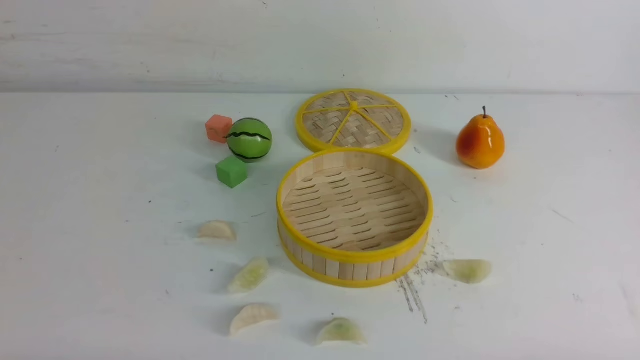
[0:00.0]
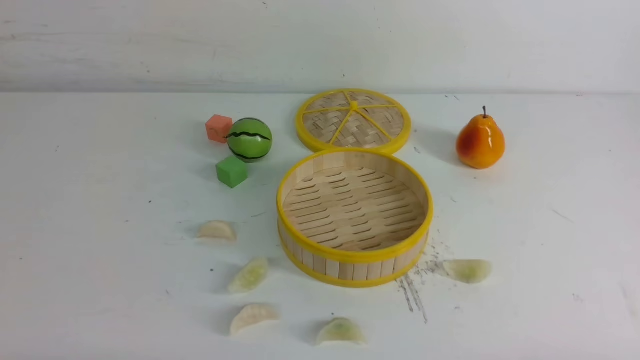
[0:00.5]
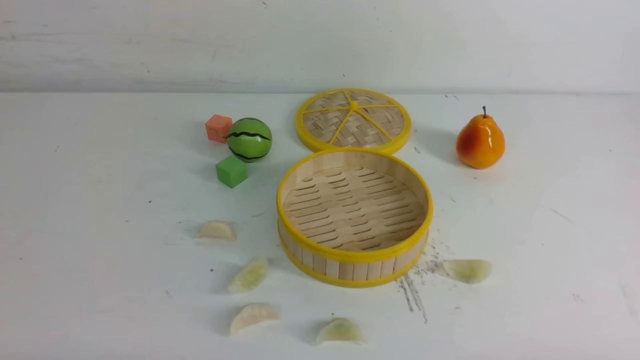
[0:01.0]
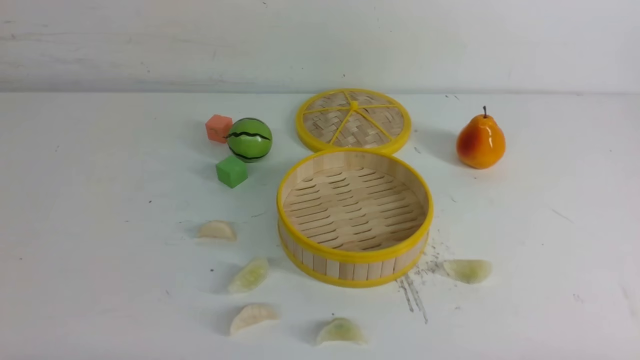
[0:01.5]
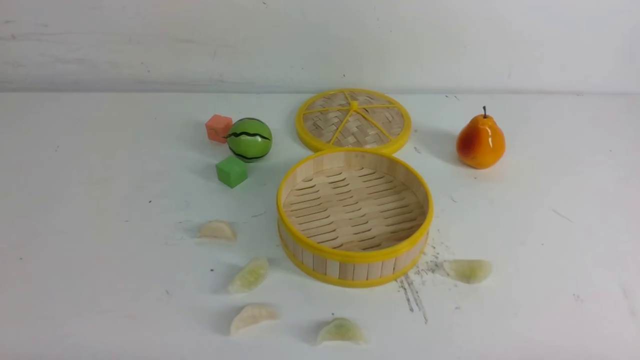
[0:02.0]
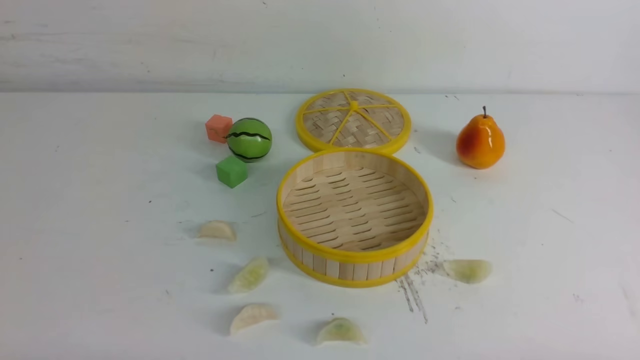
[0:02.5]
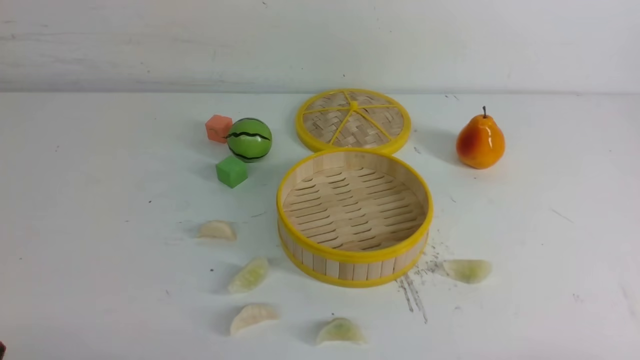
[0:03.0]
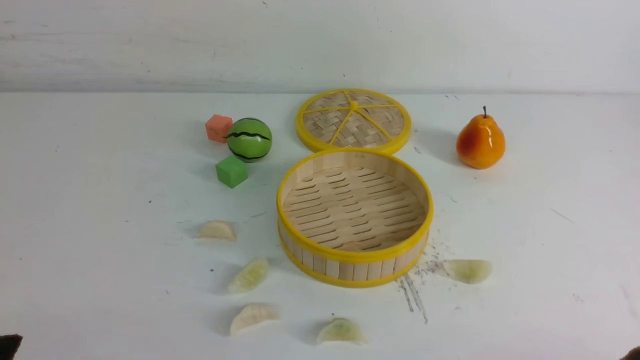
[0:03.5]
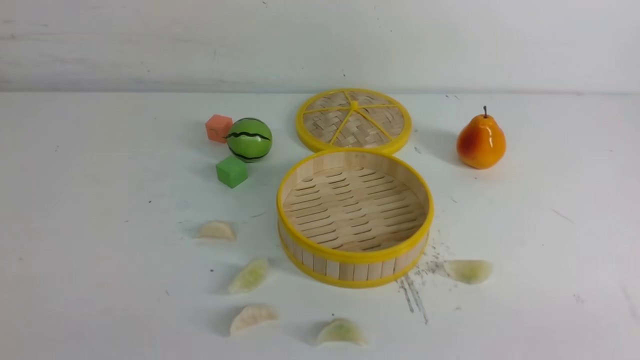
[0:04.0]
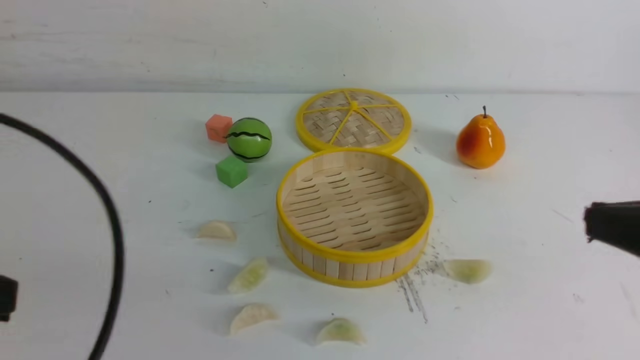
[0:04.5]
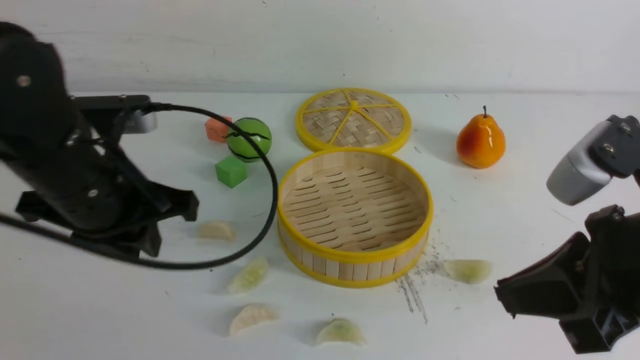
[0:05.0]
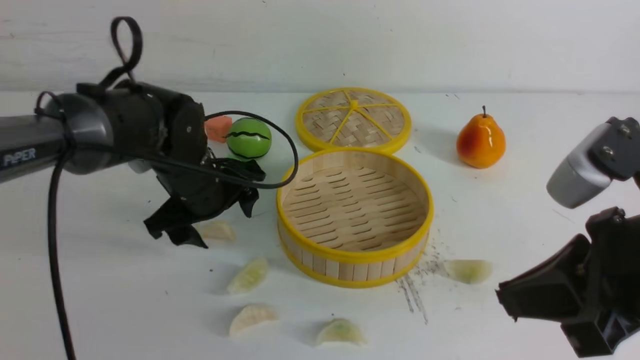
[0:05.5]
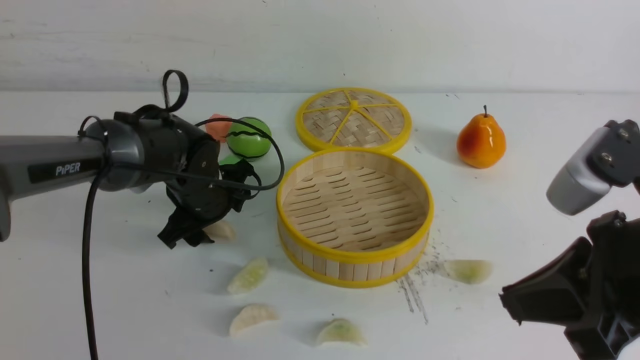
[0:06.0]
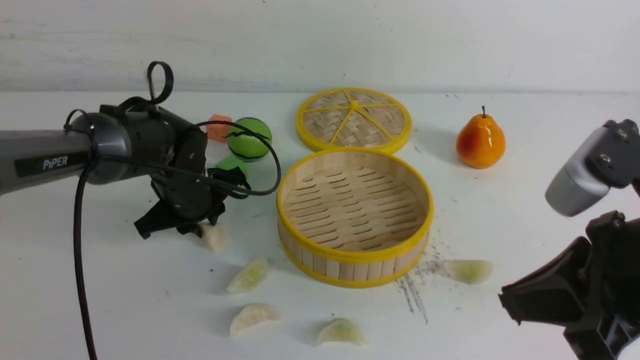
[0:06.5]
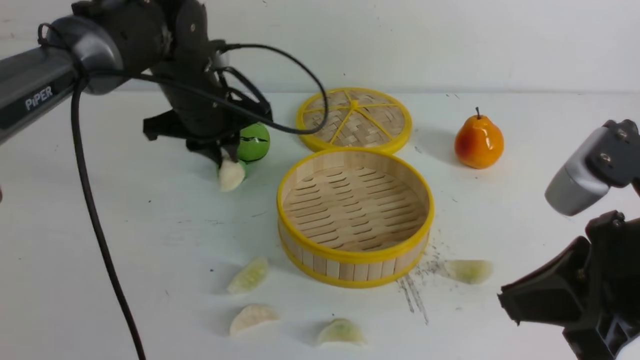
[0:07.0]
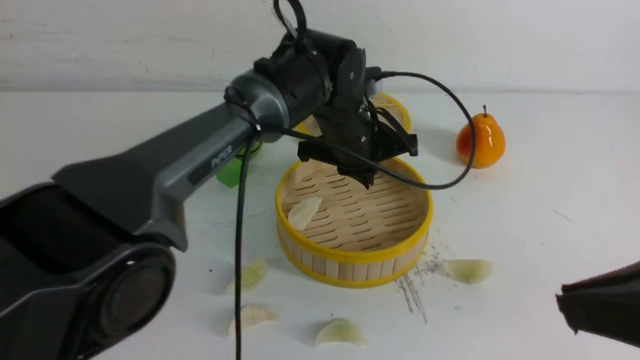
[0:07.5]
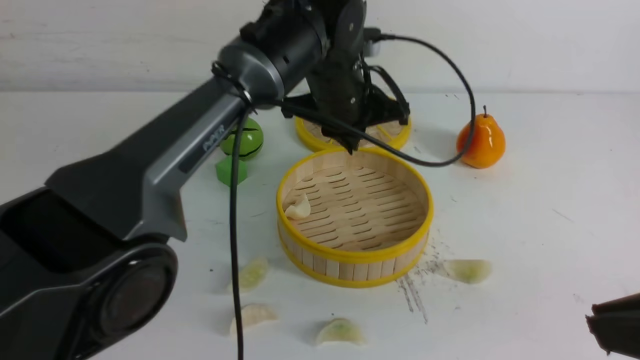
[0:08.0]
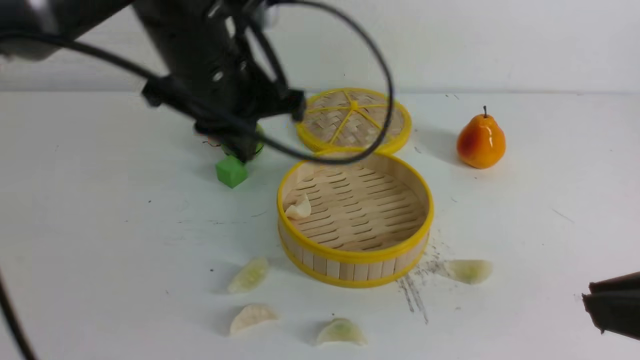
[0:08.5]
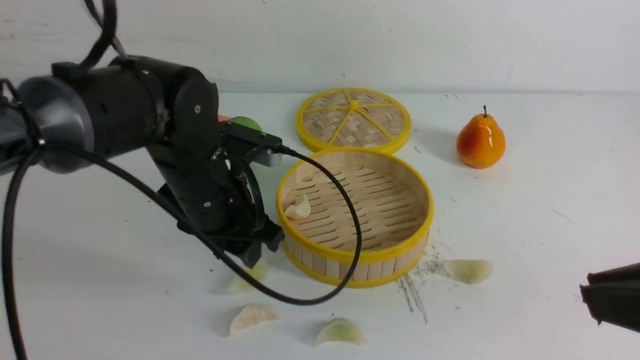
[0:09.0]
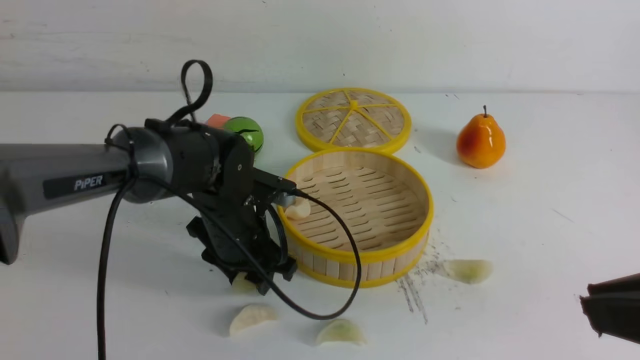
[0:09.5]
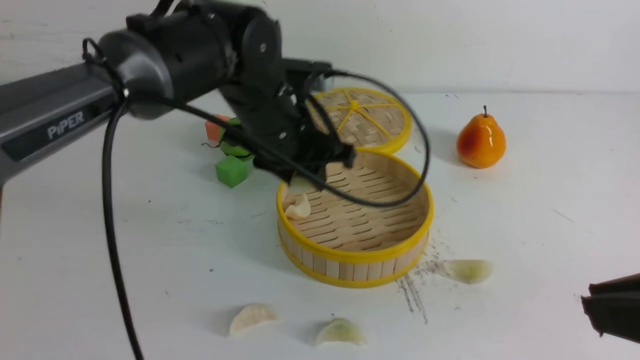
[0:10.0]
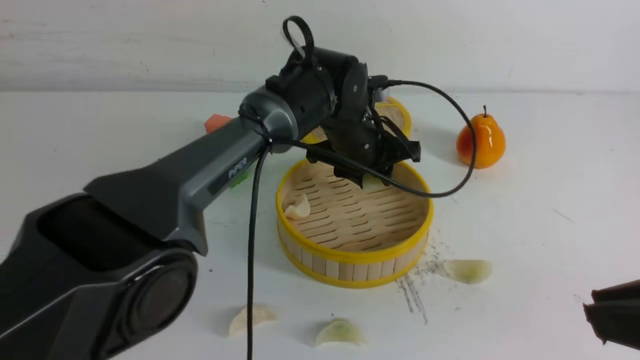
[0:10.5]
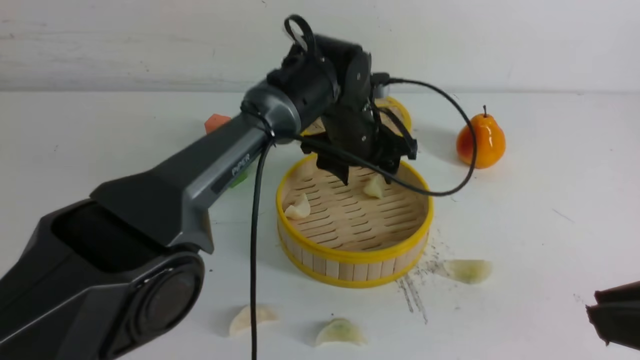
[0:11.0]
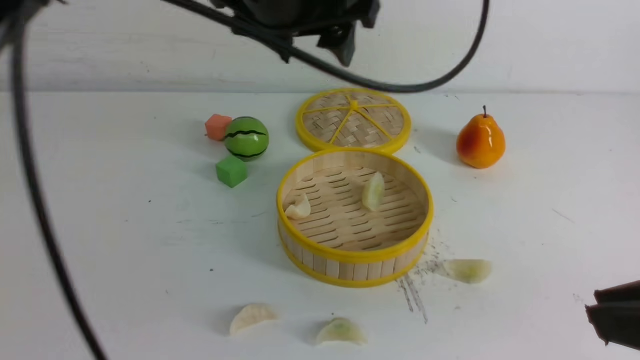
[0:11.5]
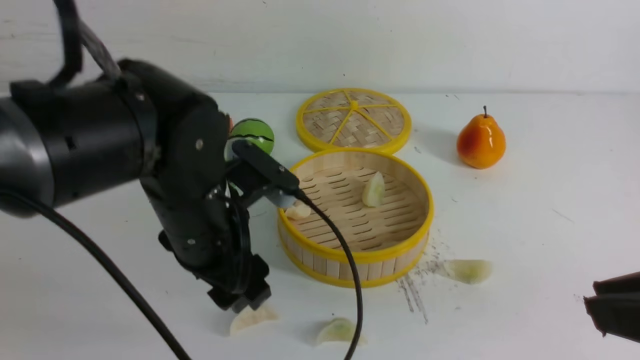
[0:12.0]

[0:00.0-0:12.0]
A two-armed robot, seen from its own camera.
Task of the whole recording: put the dumplings into the steamer on the white table.
Step, 0:00.0 to 0:06.5: use the left arm to grab a dumpling.
Step, 0:07.5 to 0:09.5: use the left arm to grab a dumpling.
Step, 0:10.0 to 0:10.5: use the left arm to put the dumpling into the steamer.
0:00.0 to 0:02.0: Both grippers stay put.
0:04.0 to 0:06.0: The left gripper shifts some 35 cm forward, and opens. Meanwhile the right gripper heads forward, to the left and upward, covering approximately 15 cm, and closes its fingers.
0:06.0 to 0:08.0: The left gripper moves upward and to the right, about 20 cm, and closes its fingers. Meanwhile the right gripper heads backward, covering roughly 5 cm.
0:08.0 to 0:10.0: The left gripper moves about 15 cm downward and comes back, and opens.
0:10.0 to 0:12.0: The left gripper moves up and down over approximately 20 cm, changing direction 2 times, and opens up.

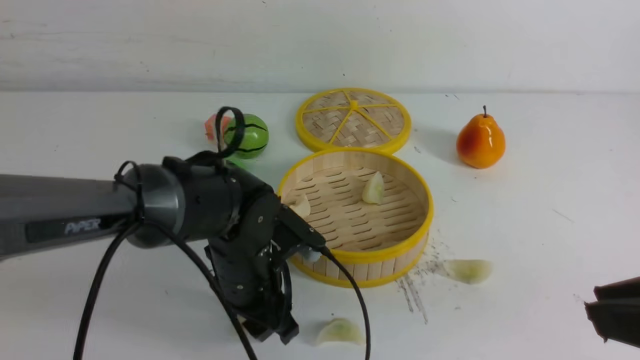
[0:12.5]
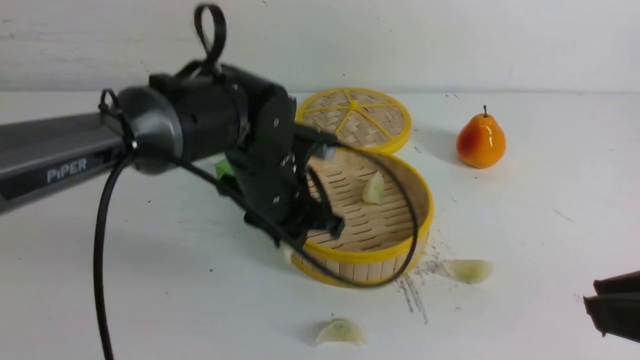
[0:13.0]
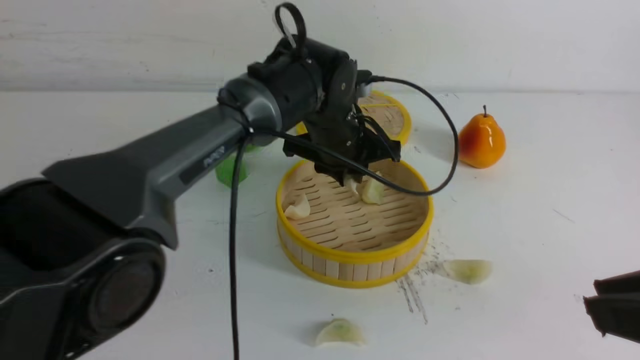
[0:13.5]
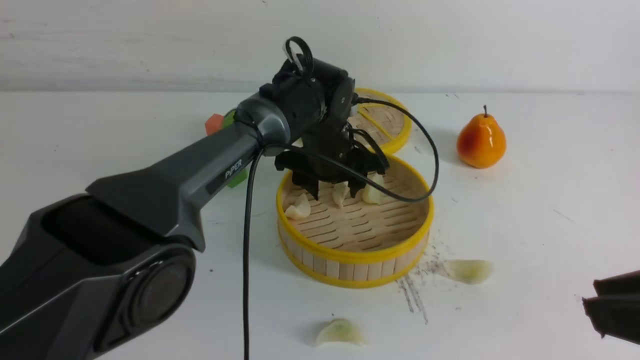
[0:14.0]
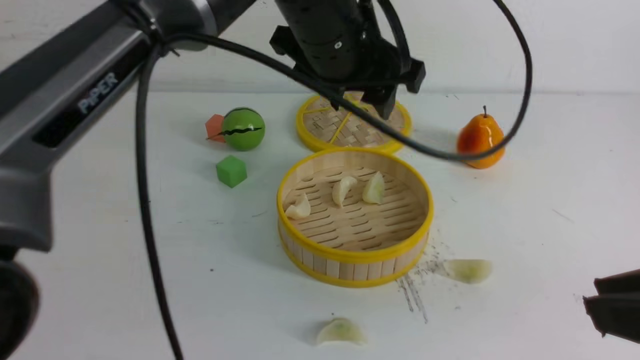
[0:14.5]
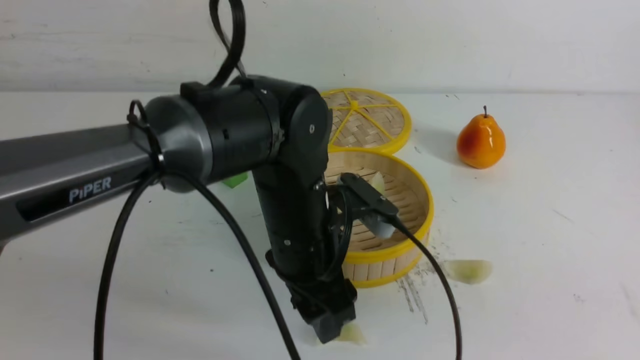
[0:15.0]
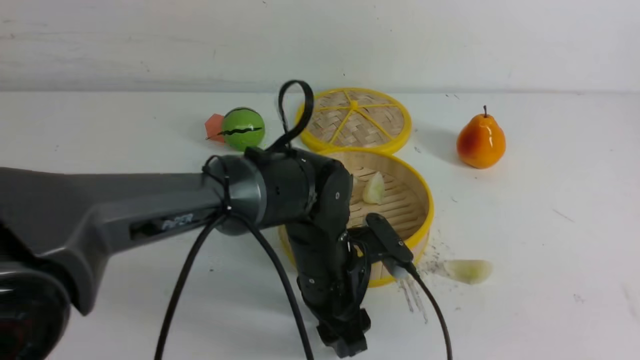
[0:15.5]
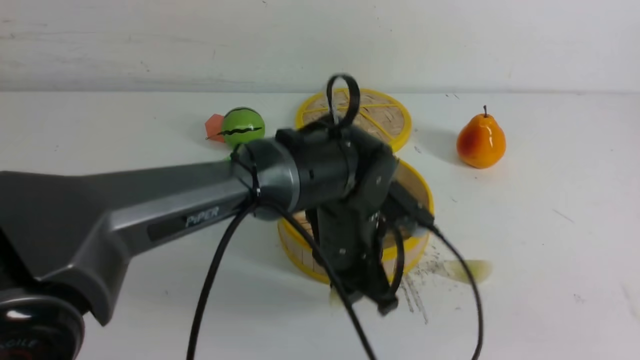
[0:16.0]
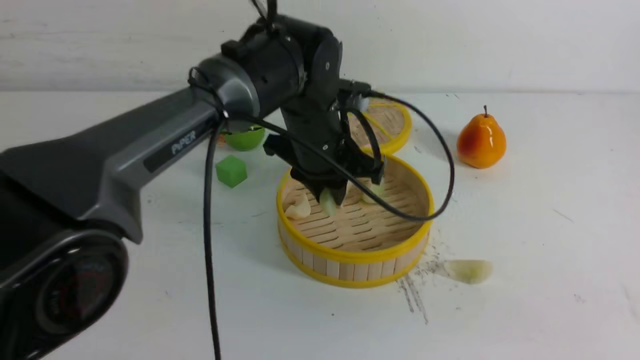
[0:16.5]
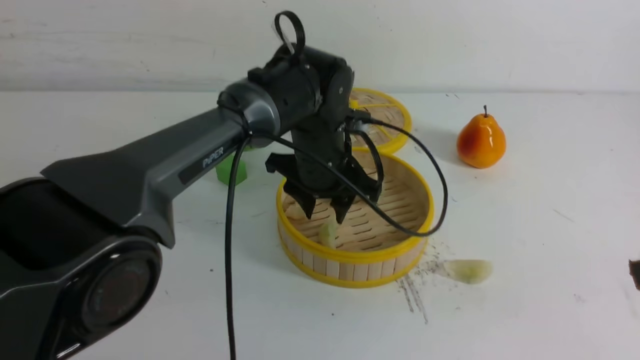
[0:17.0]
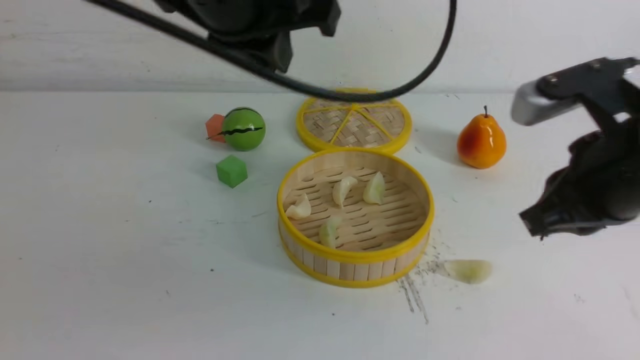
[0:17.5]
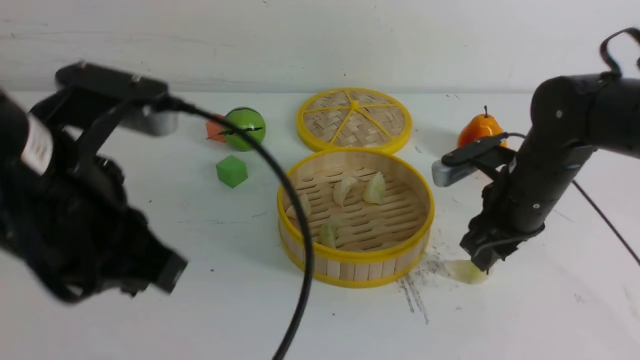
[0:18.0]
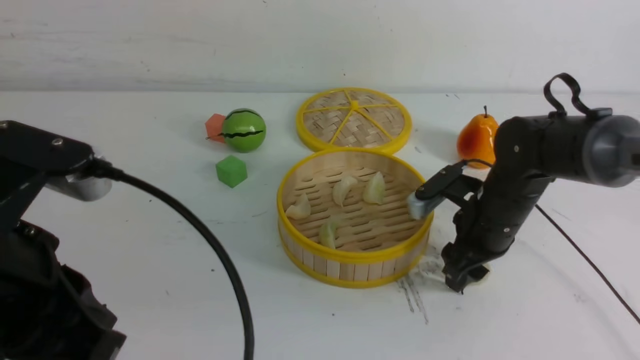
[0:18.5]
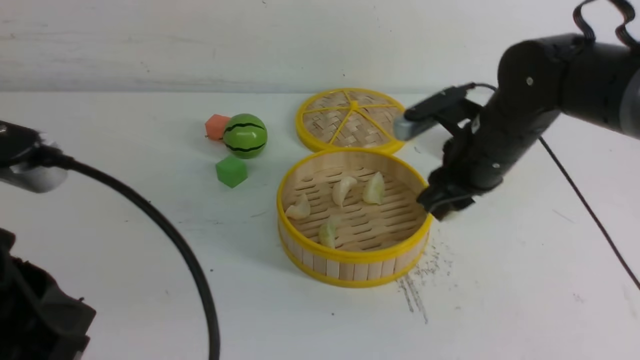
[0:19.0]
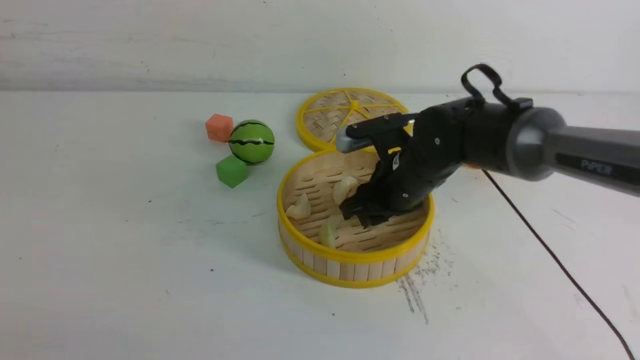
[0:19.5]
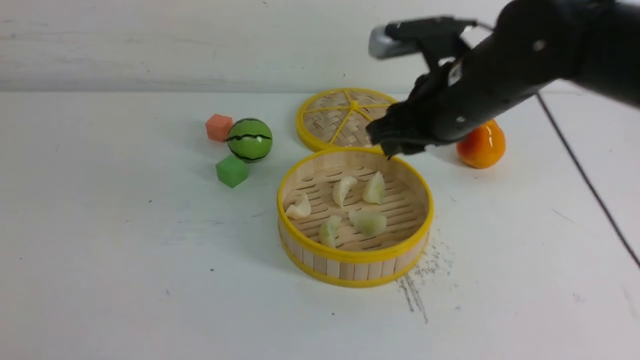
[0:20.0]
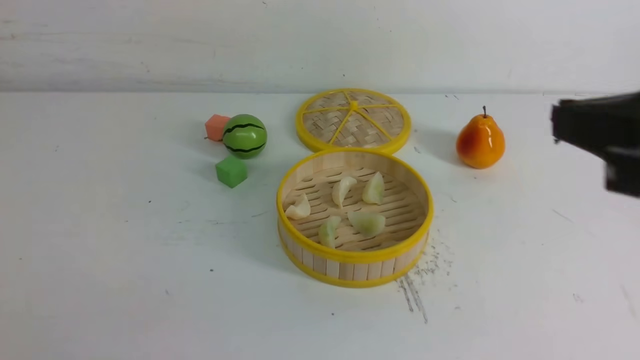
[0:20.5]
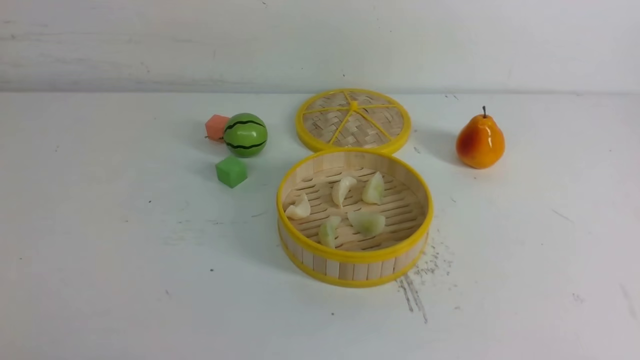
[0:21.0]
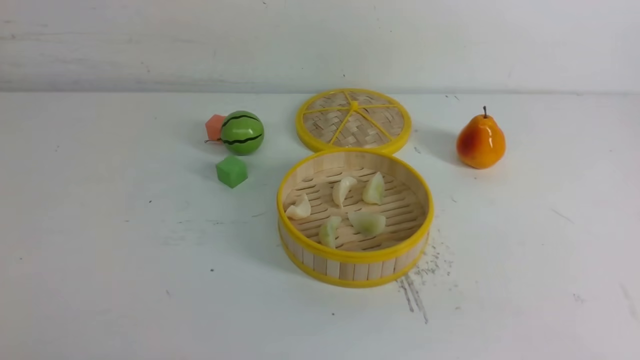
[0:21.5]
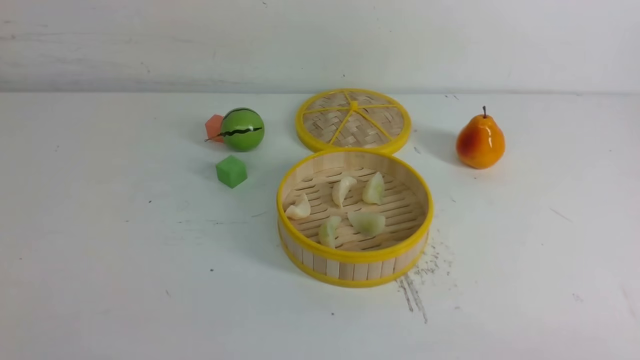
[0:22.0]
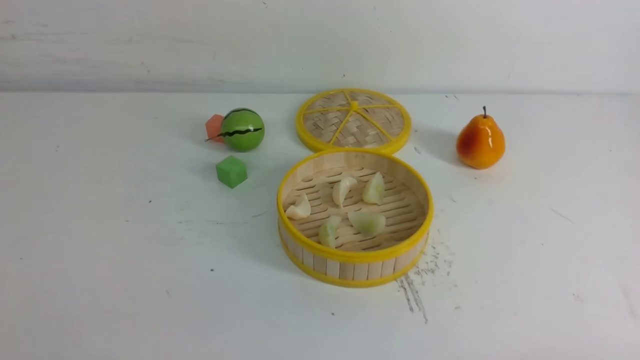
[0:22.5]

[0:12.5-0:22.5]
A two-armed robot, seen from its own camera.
Task of the whole recording: put the dumplings into the steamer on the white table.
Step, 0:13.0 to 0:13.5: use the left arm to put the dumpling into the steamer.
Step, 0:14.0 to 0:15.5: use the left arm to grab a dumpling.
Step, 0:16.0 to 0:16.5: use the left arm to put the dumpling into the steamer.
Step, 0:17.0 to 0:18.5: use the right arm to grab a dumpling.
Step, 0:19.0 to 0:19.5: use the right arm to put the dumpling into the steamer.
0:12.5 to 0:14.5: The left gripper goes approximately 20 cm upward.
0:14.5 to 0:16.5: The left gripper moves downward, some 10 cm, and closes up.
0:16.5 to 0:18.5: The right gripper goes approximately 35 cm forward and downward, and opens its fingers; the left gripper is displaced backward and to the left by approximately 30 cm, and closes its fingers.
0:18.5 to 0:20.5: The left gripper moves backward and to the left, roughly 15 cm. Meanwhile the right gripper moves upward and backward, some 35 cm, and closes up.
0:20.5 to 0:22.5: The right gripper heads downward, backward and to the right, covering about 25 cm.
